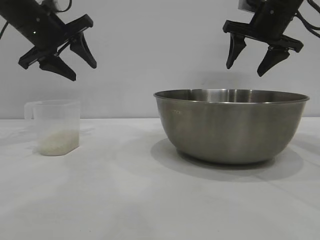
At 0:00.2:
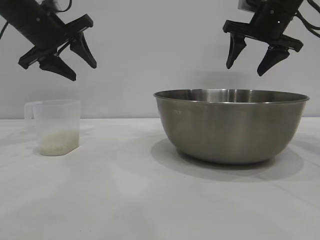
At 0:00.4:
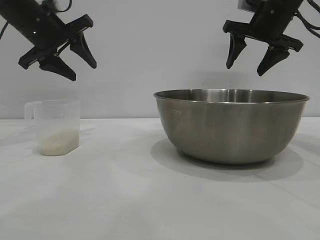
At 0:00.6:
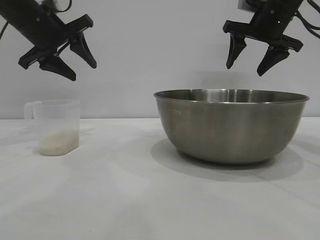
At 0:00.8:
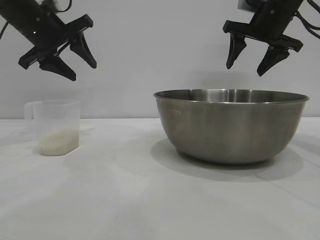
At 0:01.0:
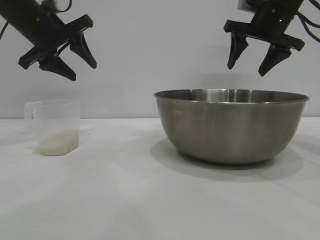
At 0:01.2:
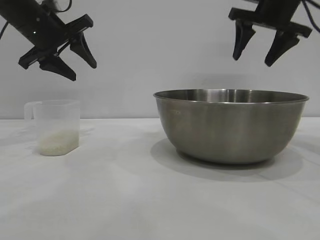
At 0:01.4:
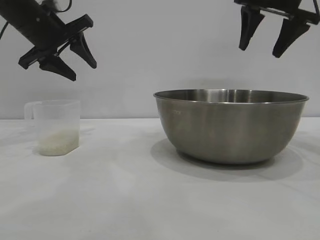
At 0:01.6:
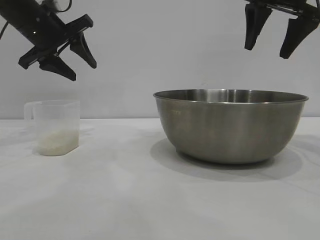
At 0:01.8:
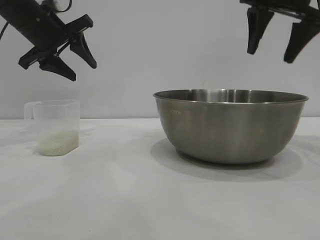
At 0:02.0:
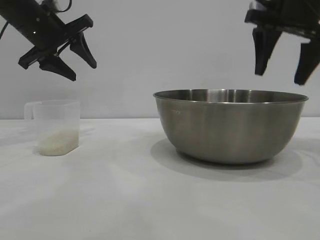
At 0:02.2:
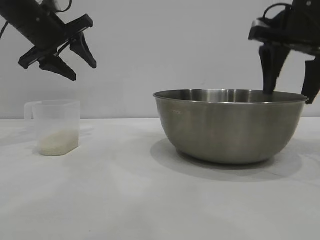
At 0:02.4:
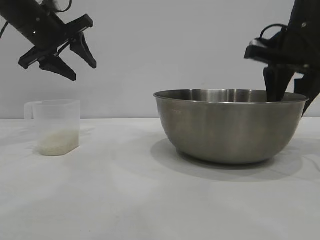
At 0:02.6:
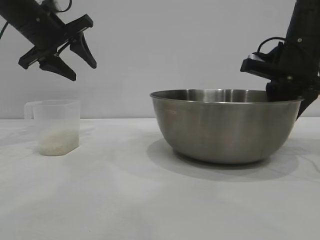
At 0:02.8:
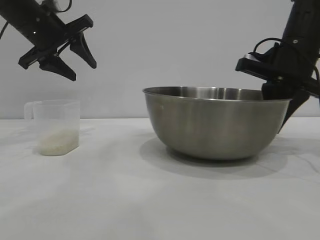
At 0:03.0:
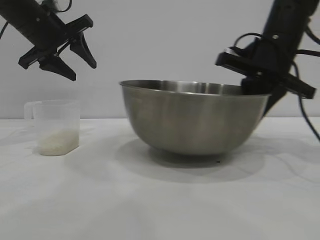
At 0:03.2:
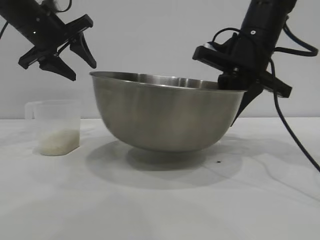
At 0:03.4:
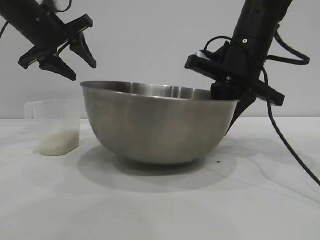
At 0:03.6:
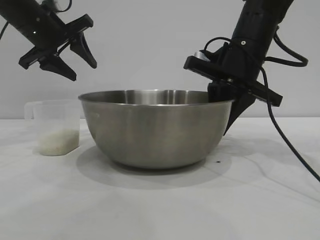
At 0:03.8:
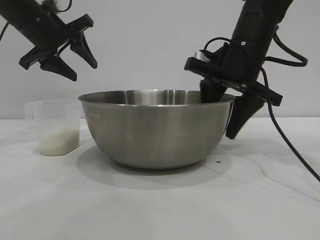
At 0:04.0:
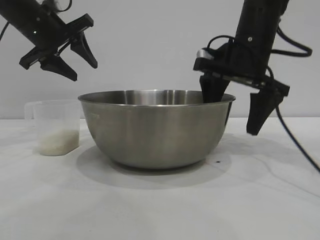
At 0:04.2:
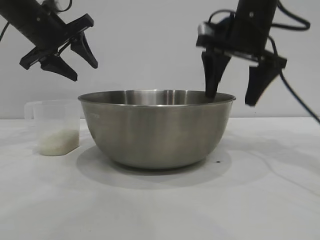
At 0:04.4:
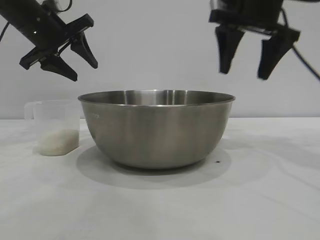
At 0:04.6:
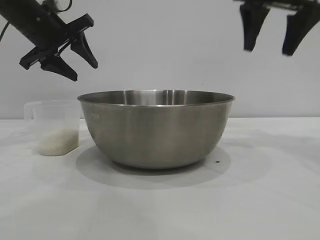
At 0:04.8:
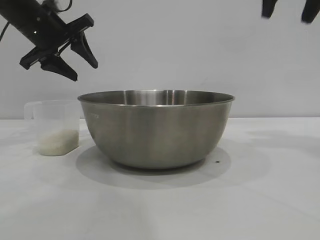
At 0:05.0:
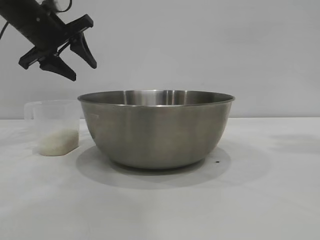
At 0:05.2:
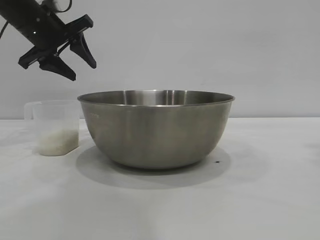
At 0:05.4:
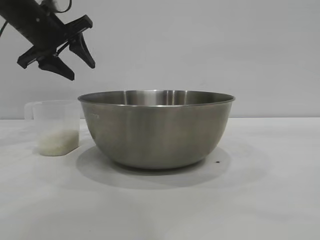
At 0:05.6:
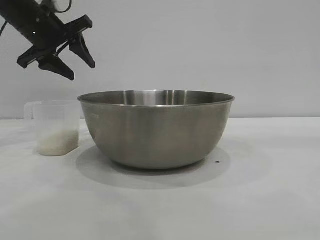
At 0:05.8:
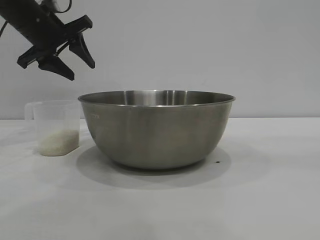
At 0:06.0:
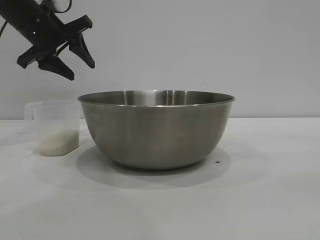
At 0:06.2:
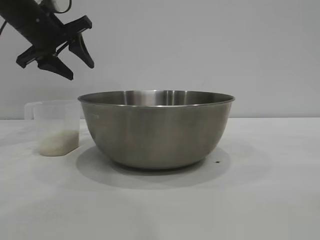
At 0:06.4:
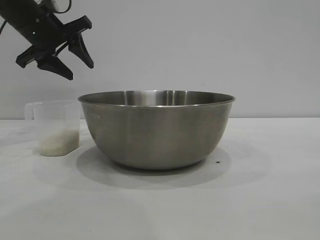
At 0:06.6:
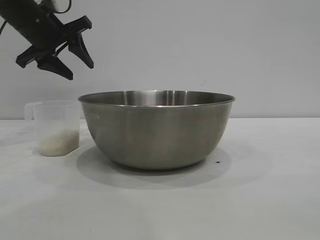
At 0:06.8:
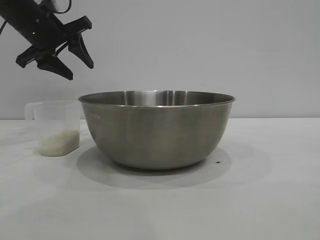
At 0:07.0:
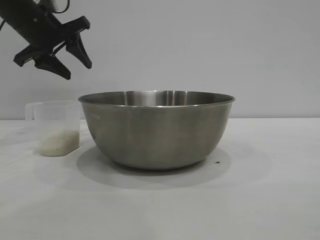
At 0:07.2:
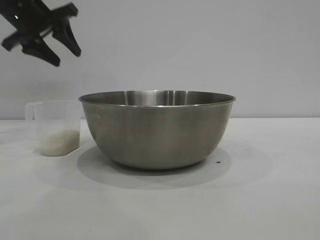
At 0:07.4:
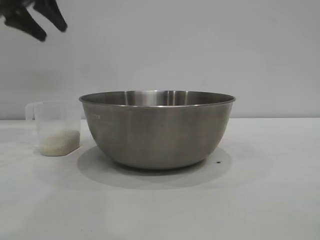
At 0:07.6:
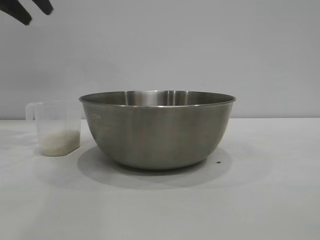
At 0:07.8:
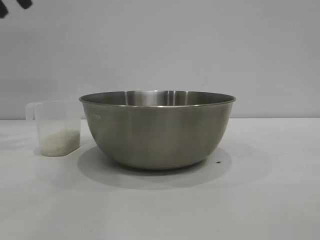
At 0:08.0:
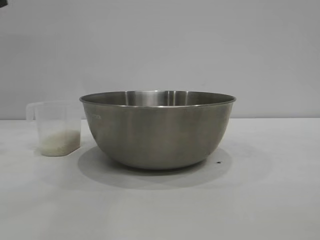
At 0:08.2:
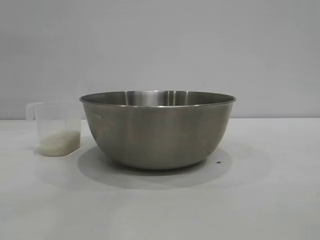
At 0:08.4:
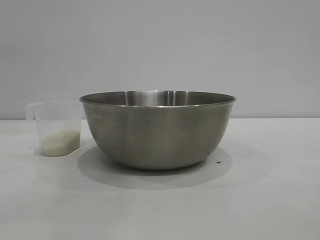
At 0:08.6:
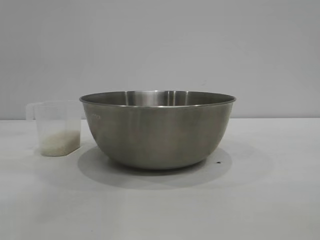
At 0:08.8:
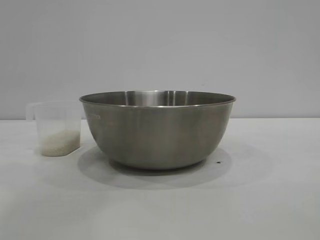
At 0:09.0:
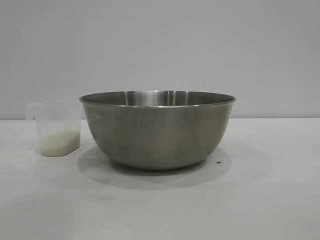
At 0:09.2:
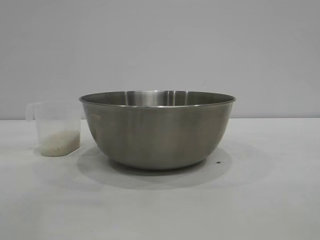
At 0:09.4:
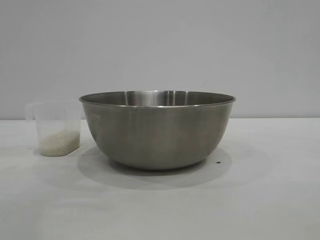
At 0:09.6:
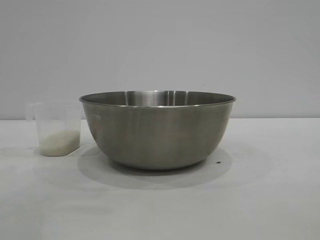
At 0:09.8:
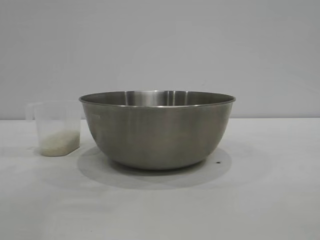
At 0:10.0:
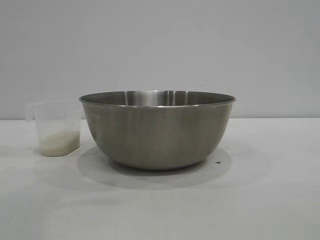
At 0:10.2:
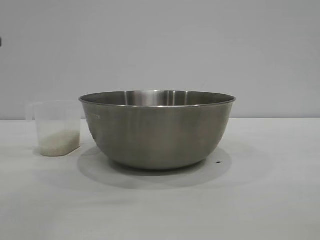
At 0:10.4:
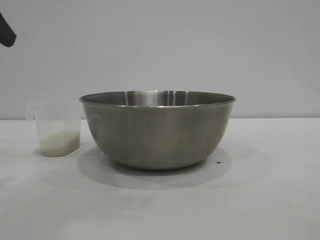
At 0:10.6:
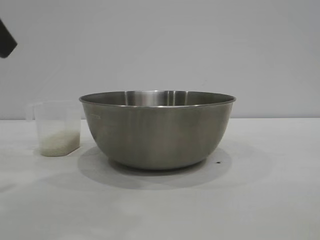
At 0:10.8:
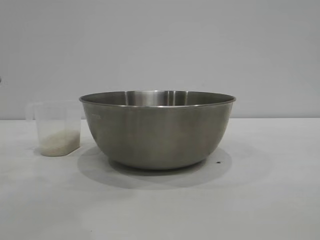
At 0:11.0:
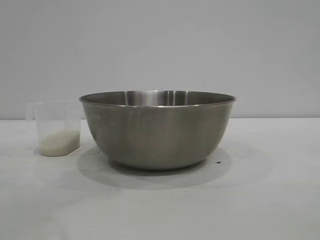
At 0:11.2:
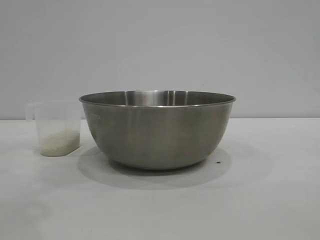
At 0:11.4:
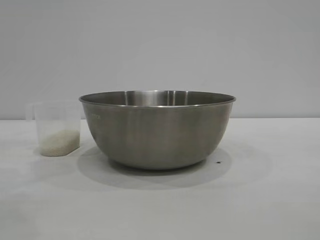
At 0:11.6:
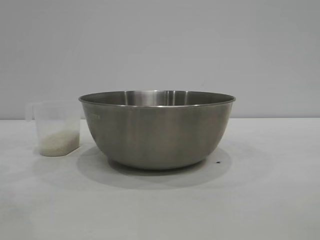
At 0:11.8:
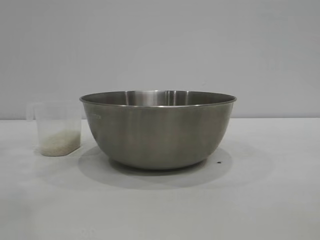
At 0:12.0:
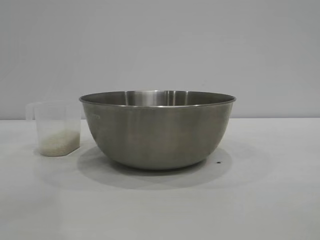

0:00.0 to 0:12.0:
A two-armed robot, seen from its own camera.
Task of the whole recording: the right gripper grasp the rice container and place it in the center of the table, the left gripper grasp the rice scoop and pour the rice into the rice container.
Step, 0:00.0 to 0:02.8: Pick up the bowl with the right gripper.
Step, 0:03.0 to 0:04.4: Place the bowl in the center of view with the right gripper.

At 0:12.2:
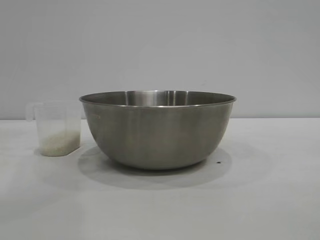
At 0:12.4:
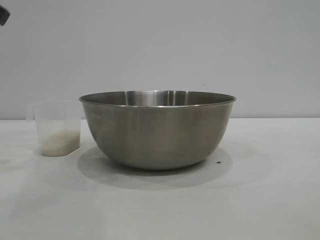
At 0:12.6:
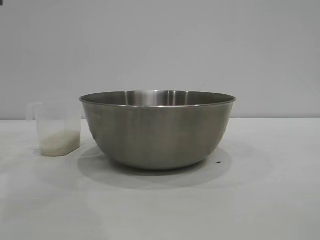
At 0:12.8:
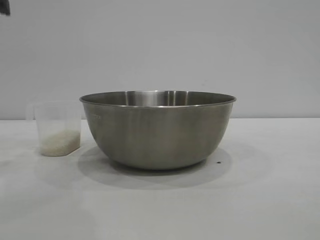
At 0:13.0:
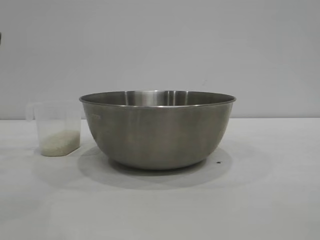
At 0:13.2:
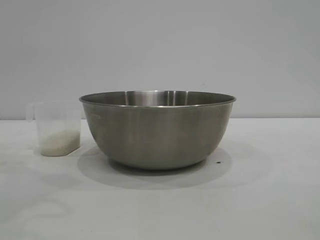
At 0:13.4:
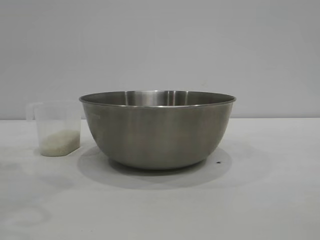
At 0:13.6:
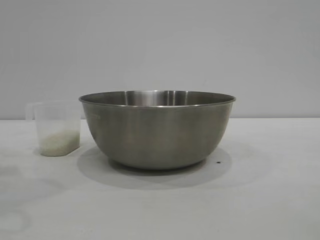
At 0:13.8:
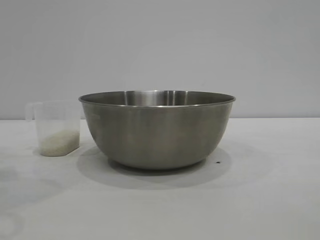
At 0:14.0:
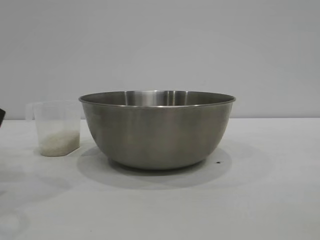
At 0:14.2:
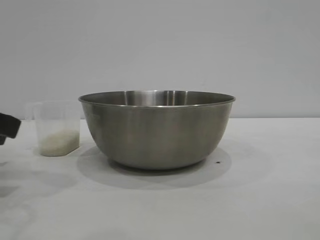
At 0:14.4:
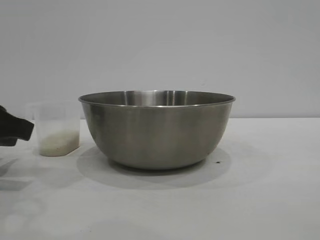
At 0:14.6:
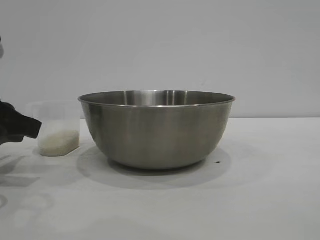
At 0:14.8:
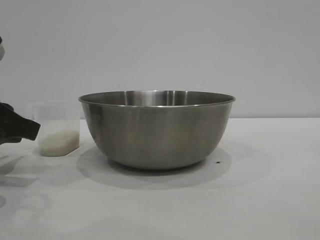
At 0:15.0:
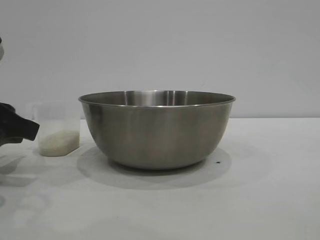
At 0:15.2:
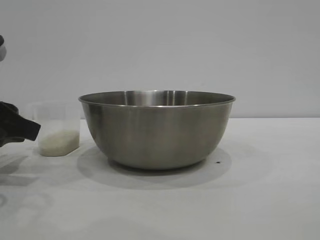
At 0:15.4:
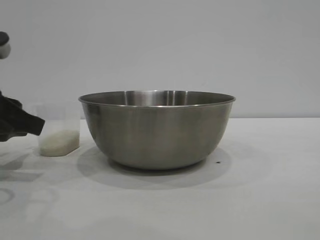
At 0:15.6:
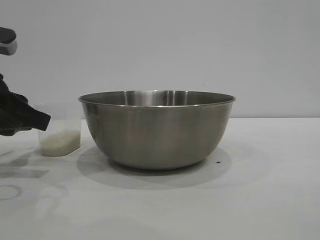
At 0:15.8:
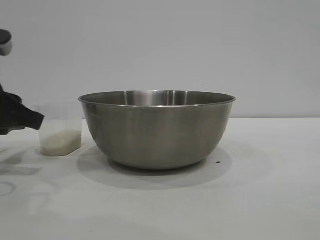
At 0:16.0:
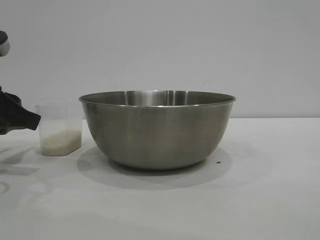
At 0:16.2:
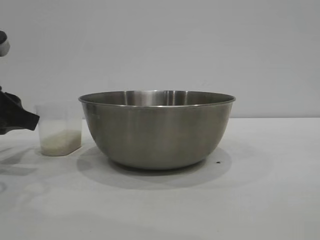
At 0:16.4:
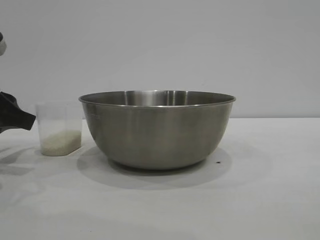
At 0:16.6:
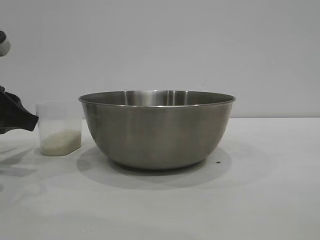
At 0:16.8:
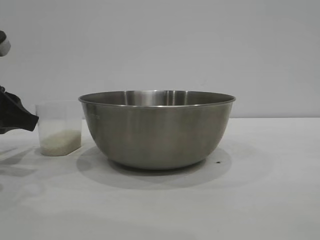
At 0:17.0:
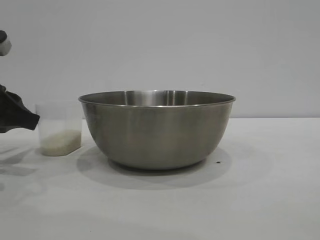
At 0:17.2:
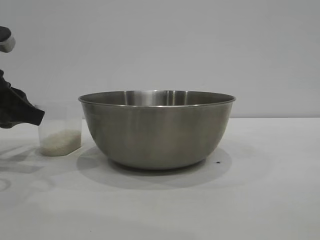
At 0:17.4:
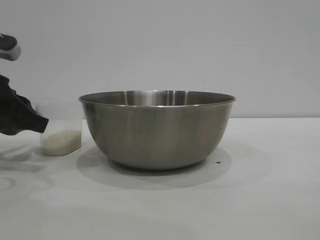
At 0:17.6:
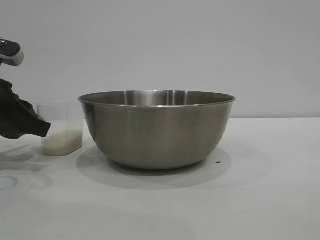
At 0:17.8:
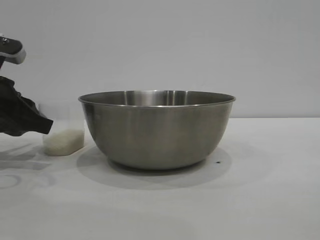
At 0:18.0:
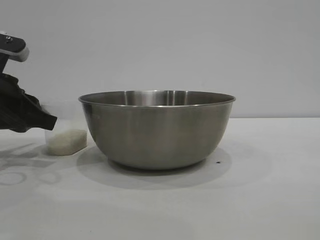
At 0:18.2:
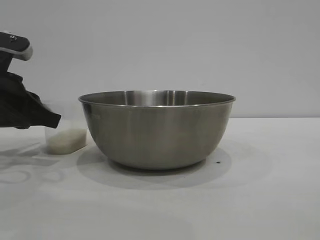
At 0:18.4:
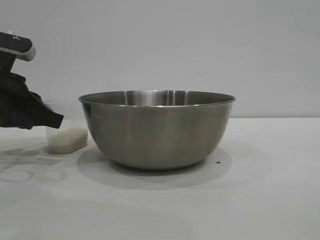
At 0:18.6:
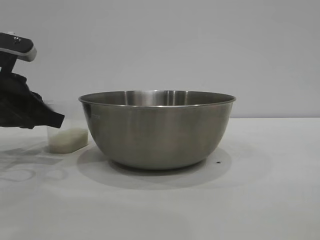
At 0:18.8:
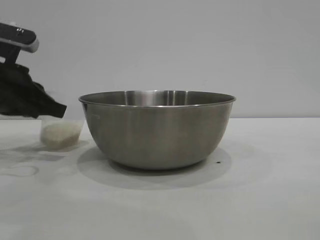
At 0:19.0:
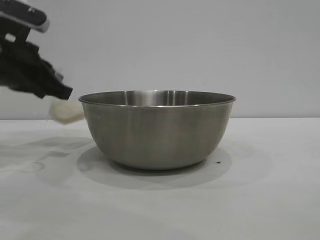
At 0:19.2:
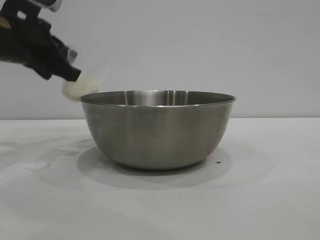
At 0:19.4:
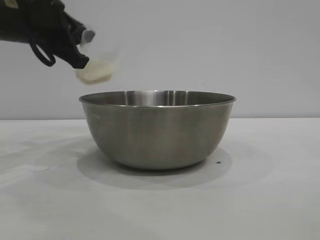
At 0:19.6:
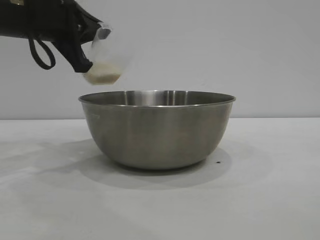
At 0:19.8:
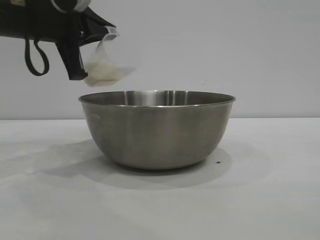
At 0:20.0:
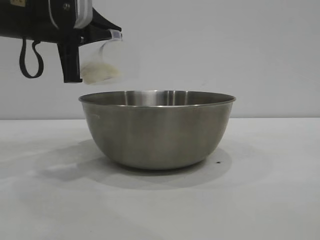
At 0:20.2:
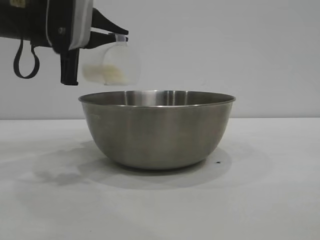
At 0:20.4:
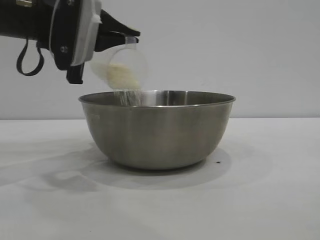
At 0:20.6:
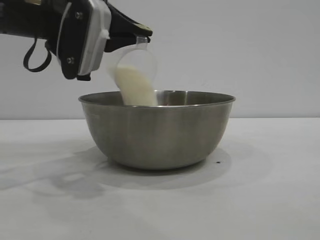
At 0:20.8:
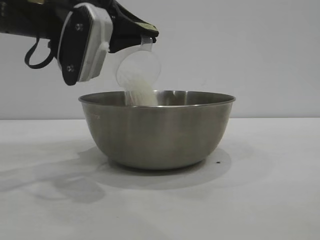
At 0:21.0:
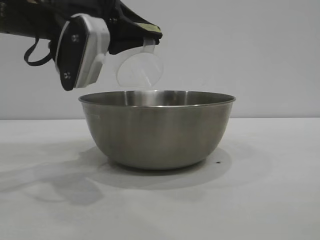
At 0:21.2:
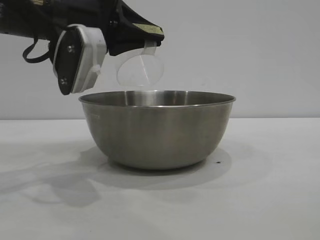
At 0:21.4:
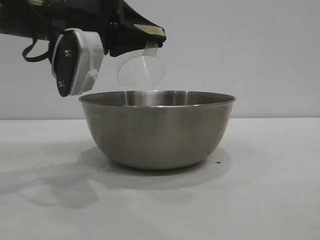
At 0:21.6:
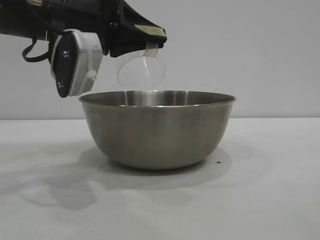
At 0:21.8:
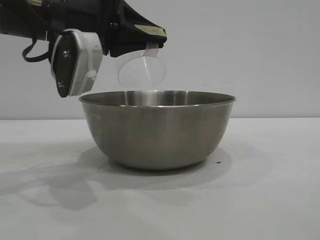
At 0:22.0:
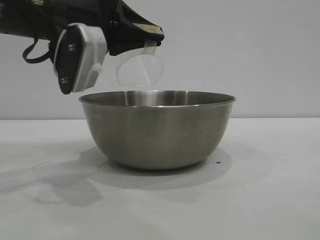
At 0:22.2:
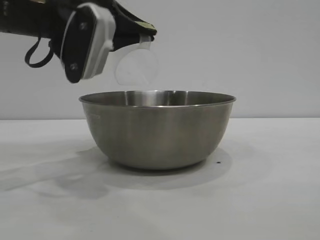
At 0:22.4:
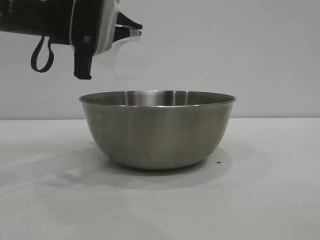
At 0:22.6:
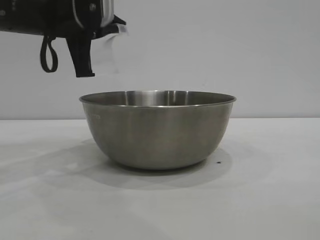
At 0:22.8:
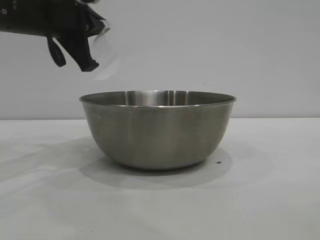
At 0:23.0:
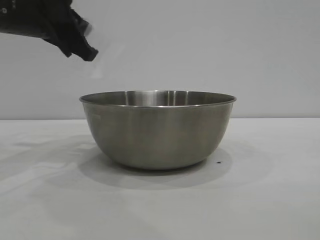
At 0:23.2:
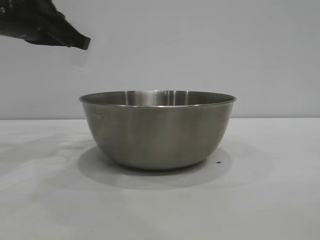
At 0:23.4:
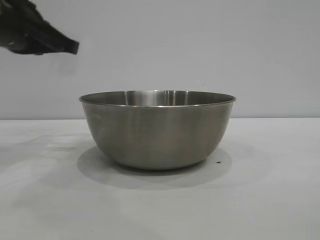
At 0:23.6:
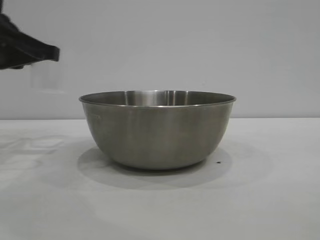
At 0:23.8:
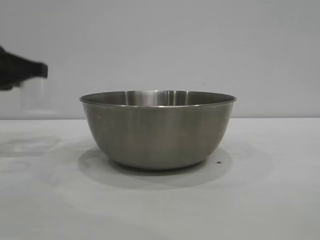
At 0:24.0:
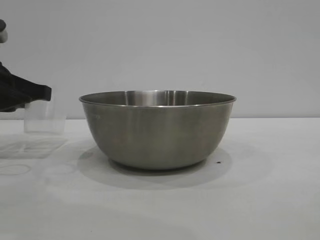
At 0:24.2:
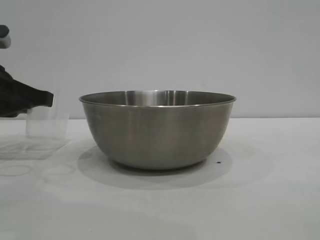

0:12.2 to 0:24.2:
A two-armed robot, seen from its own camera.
Task of the whole recording: the right gripper grasp the rice container and place it in the center of the table, the left gripper grasp the rice scoop and pour the rice into the rice container.
Step, 0:12.2 to 0:19.0: Pick up the cup with rice in it with the left gripper.
Step, 0:19.2 to 0:22.0: Pour the rice from the cup into the bowl with the left gripper.
